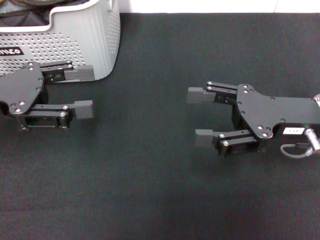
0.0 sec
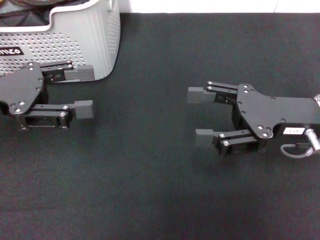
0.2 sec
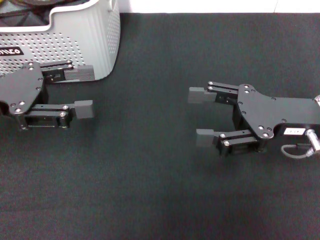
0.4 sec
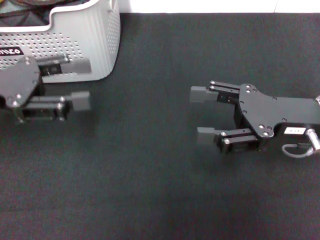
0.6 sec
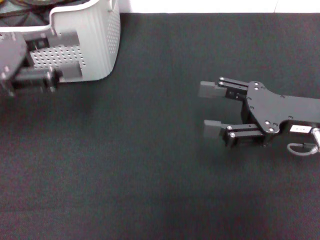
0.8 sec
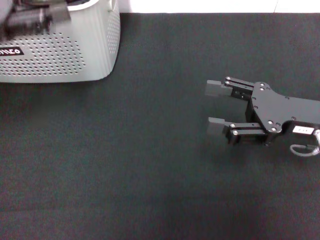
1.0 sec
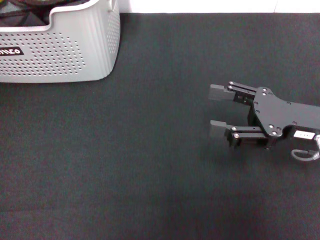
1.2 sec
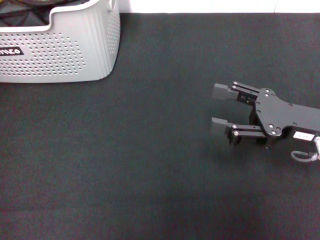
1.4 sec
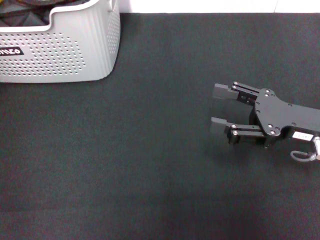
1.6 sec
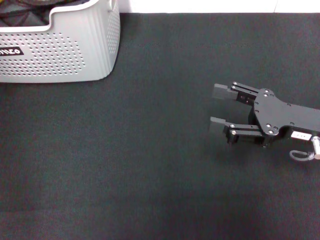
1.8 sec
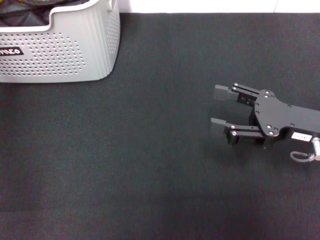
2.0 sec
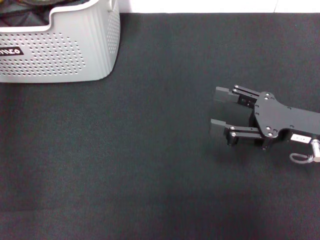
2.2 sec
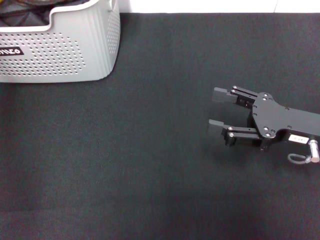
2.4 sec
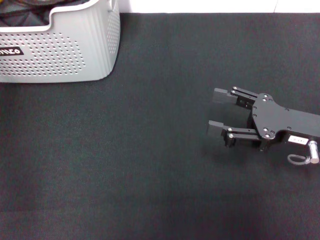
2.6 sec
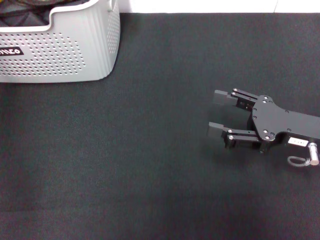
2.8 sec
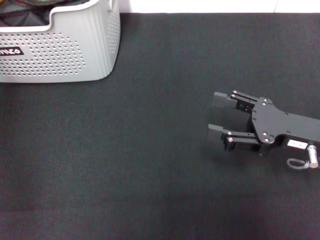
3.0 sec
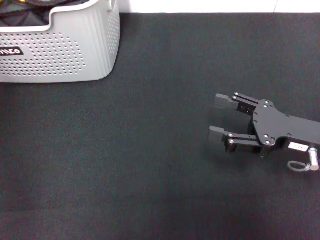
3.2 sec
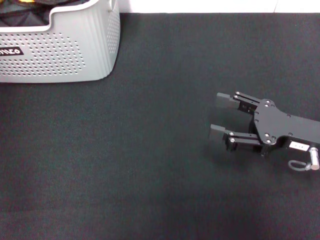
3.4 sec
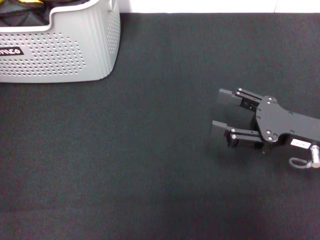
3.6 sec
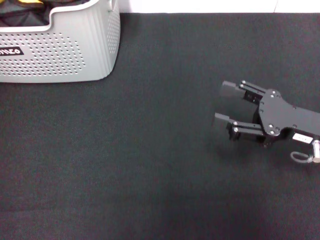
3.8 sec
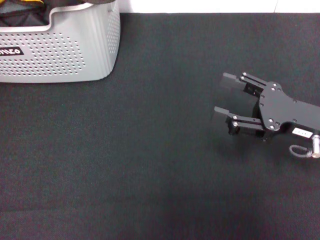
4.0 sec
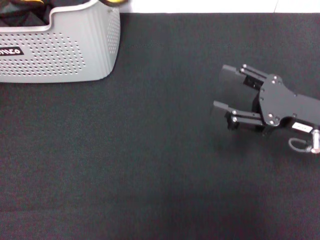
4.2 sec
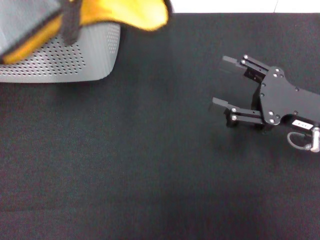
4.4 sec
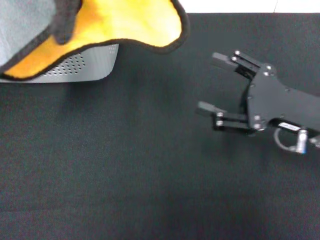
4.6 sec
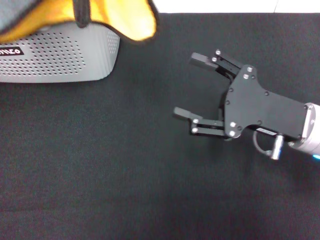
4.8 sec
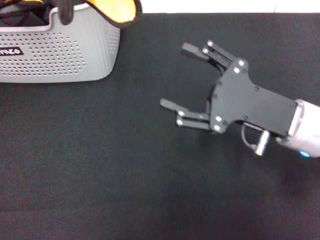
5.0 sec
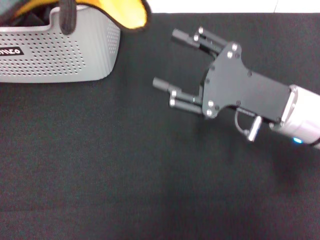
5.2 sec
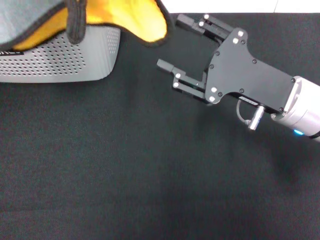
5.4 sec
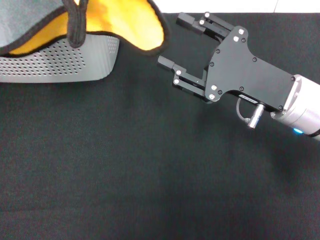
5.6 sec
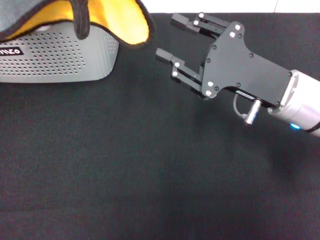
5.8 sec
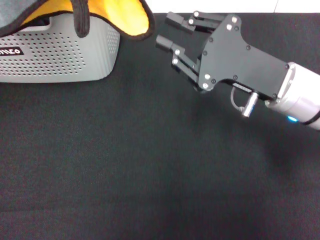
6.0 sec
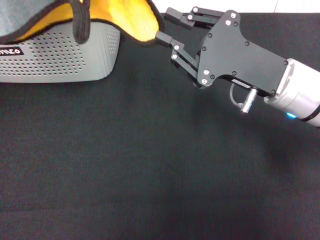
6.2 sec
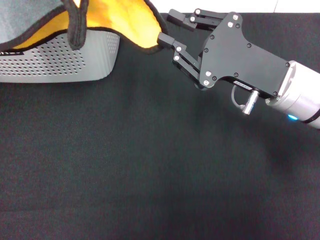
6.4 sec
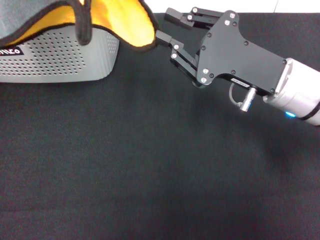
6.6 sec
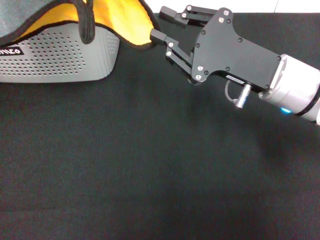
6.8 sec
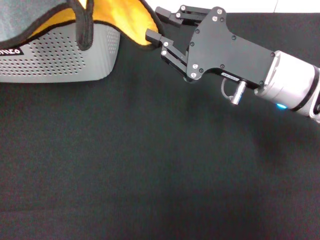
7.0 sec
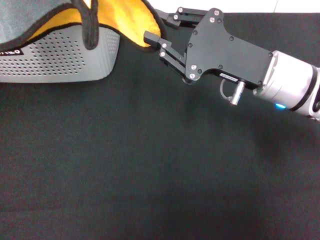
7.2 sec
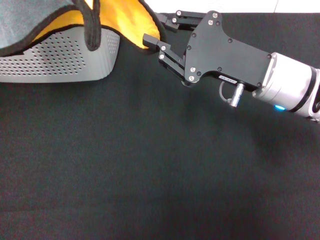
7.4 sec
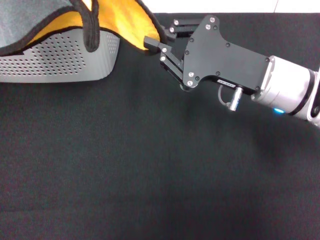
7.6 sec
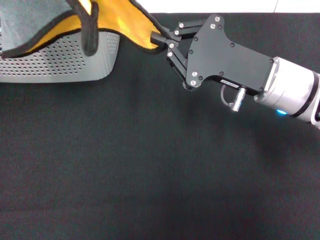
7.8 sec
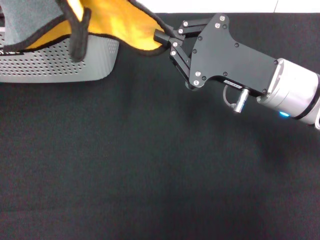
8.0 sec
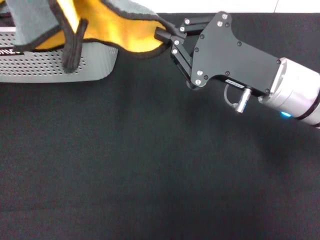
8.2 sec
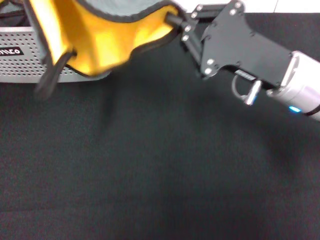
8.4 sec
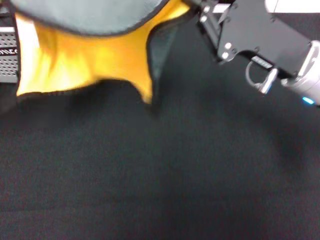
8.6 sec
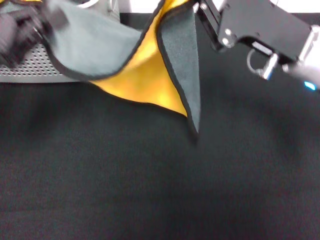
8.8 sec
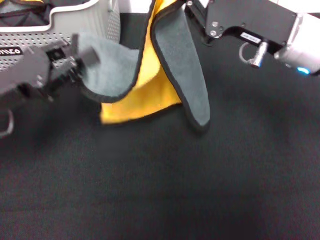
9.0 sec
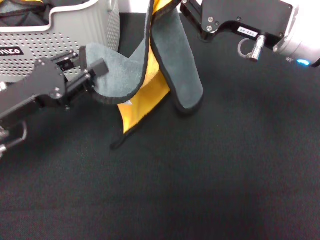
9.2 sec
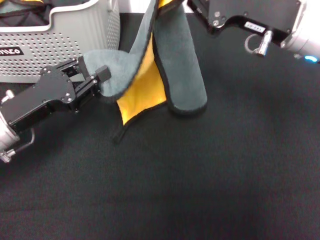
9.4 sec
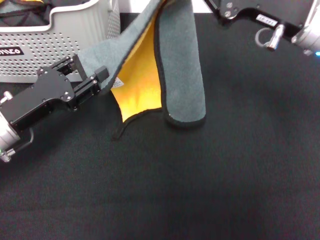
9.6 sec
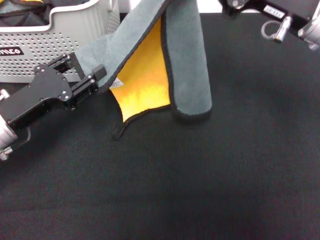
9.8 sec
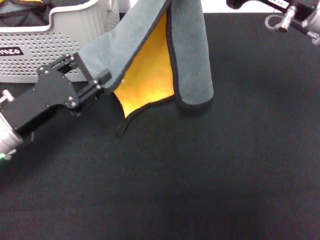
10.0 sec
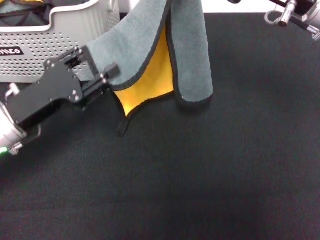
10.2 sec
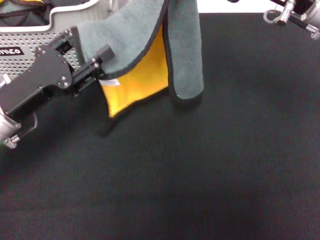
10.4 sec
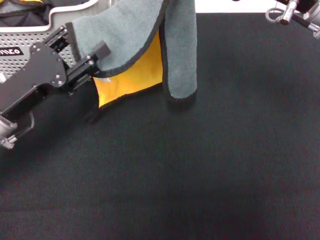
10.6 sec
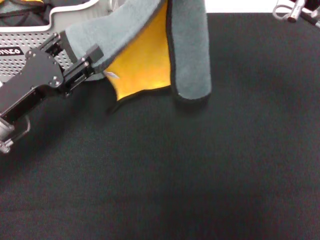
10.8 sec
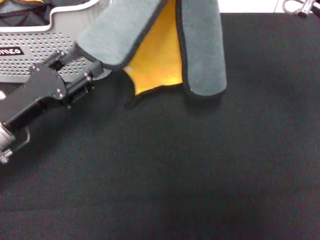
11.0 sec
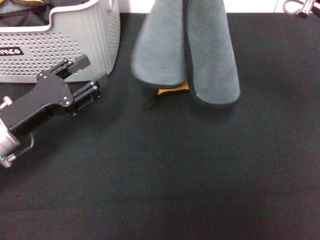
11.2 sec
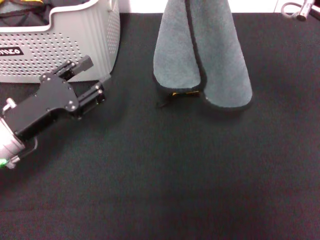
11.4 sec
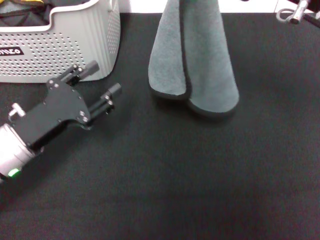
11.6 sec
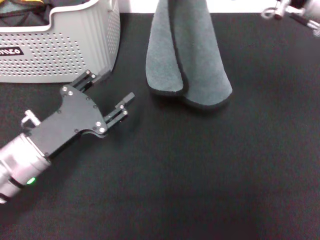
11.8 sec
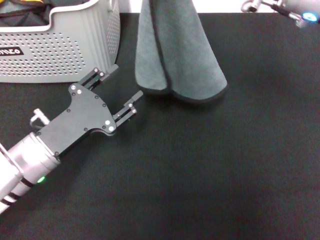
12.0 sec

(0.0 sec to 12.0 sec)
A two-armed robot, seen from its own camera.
Task of the whole recording: pick up the towel from the storage box and lay it flat on the black tablecloth.
Step, 0.0 sec - 3.4 sec: Pick up a towel with the left gripper.
Step, 3.6 sec - 7.8 sec: Spread the towel flat with the left gripper.
0.0 sec - 1.6 sec: The left gripper moves forward and upward, roughly 15 cm.
3.0 sec - 4.4 sec: The left gripper goes approximately 15 cm backward and upward, and closes its fingers.
4.4 sec - 6.0 sec: The right gripper goes roughly 10 cm to the left, and closes.
6.0 sec - 7.6 sec: The grippers stay close to where they were, moving slightly.
7.6 sec - 9.0 sec: The right gripper shifts by about 5 cm. The left gripper heads downward, covering roughly 20 cm.
9.0 sec - 10.4 sec: The left gripper opens its fingers.
10.4 sec - 12.0 sec: The left gripper heads downward, covering some 5 cm.

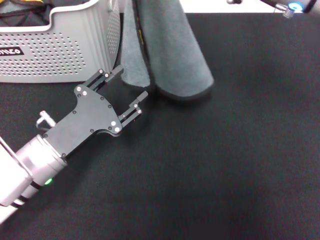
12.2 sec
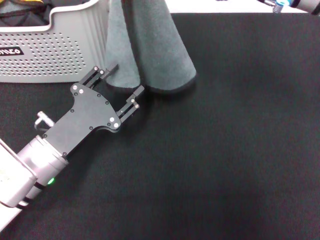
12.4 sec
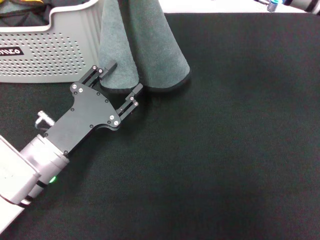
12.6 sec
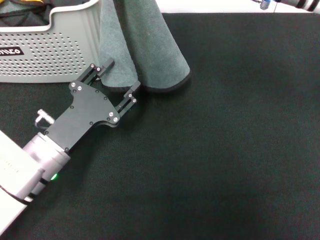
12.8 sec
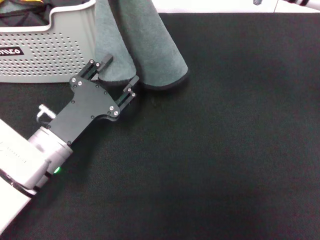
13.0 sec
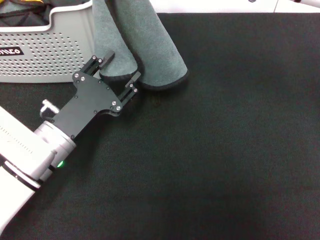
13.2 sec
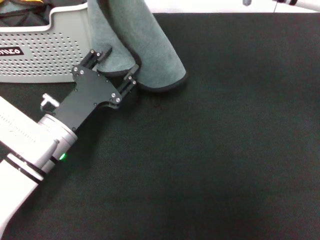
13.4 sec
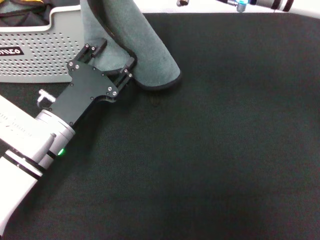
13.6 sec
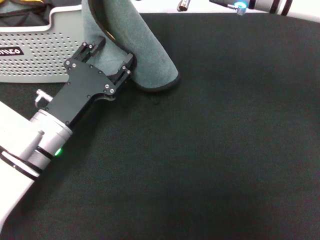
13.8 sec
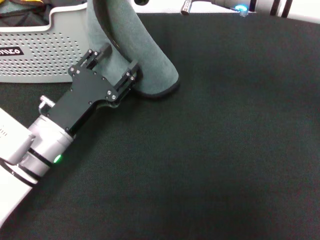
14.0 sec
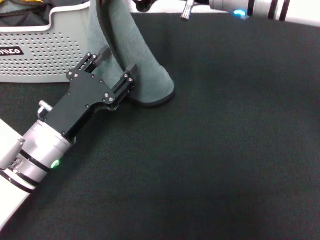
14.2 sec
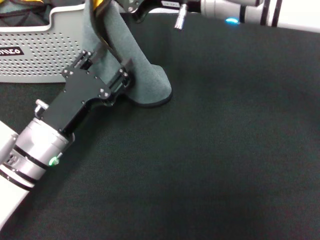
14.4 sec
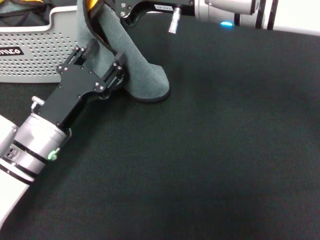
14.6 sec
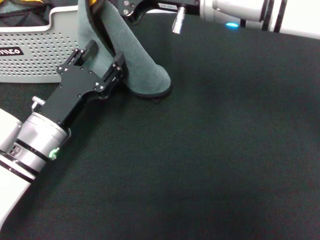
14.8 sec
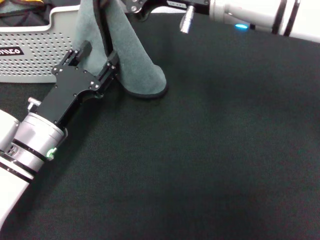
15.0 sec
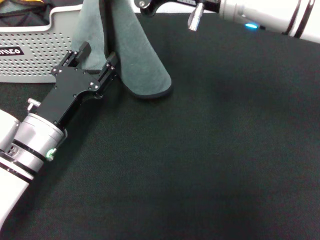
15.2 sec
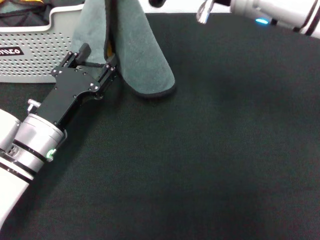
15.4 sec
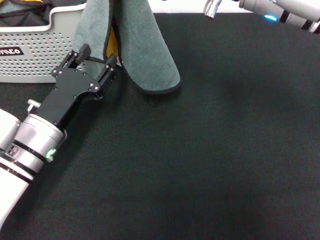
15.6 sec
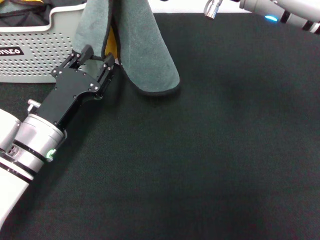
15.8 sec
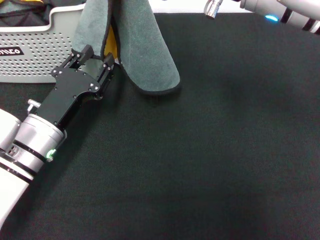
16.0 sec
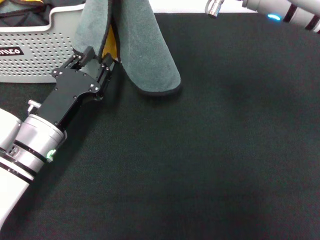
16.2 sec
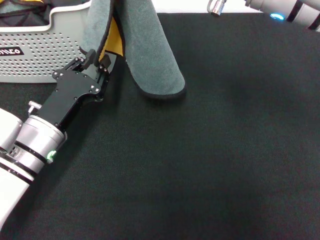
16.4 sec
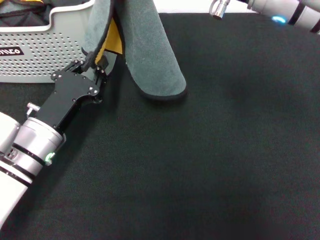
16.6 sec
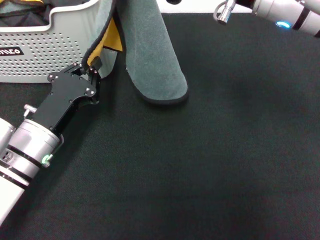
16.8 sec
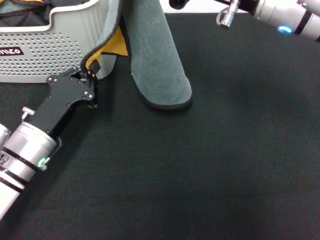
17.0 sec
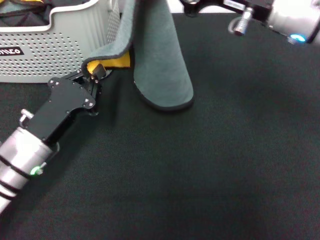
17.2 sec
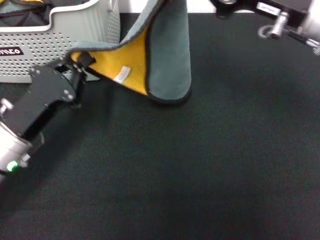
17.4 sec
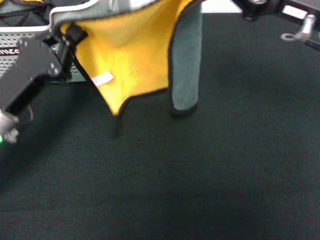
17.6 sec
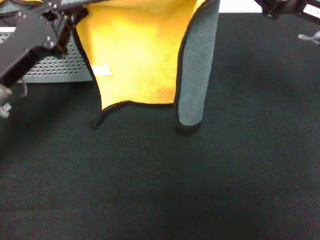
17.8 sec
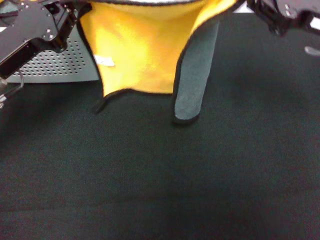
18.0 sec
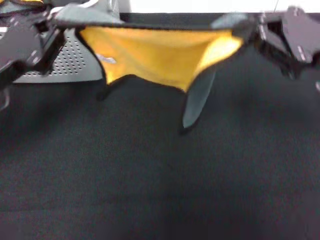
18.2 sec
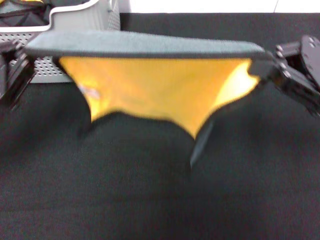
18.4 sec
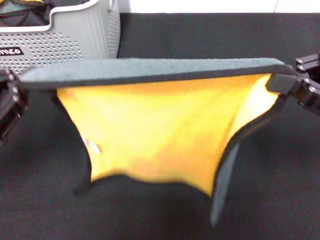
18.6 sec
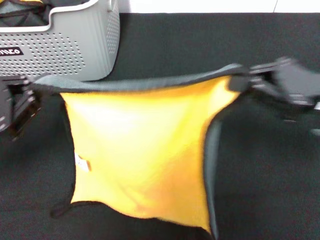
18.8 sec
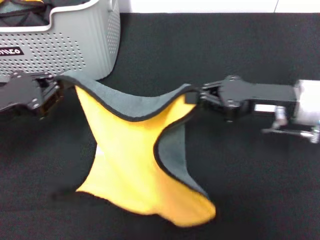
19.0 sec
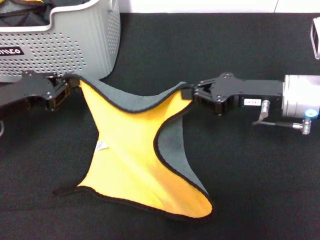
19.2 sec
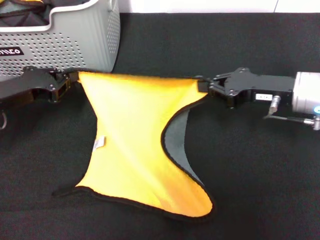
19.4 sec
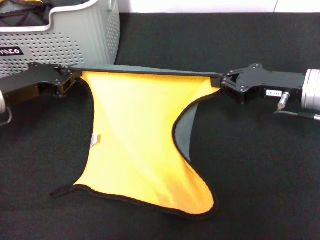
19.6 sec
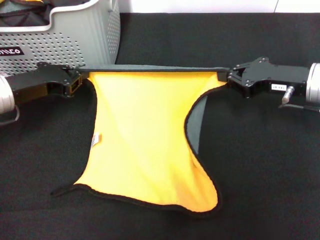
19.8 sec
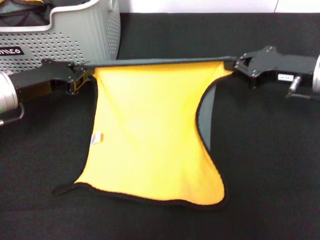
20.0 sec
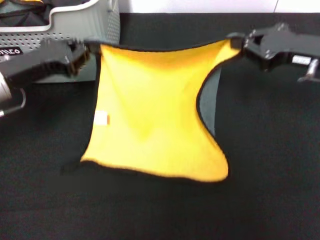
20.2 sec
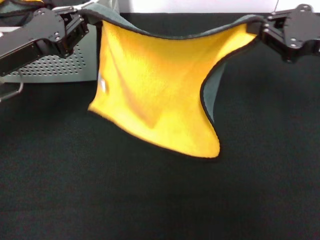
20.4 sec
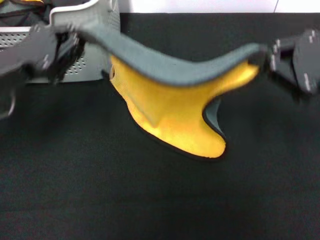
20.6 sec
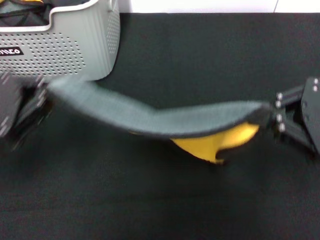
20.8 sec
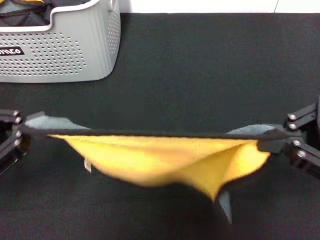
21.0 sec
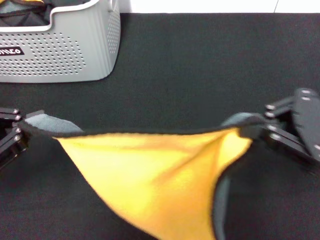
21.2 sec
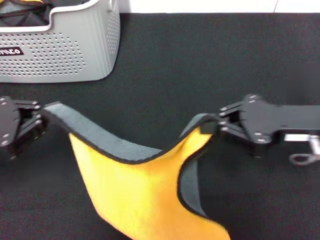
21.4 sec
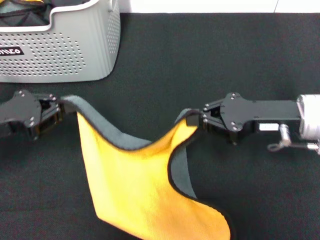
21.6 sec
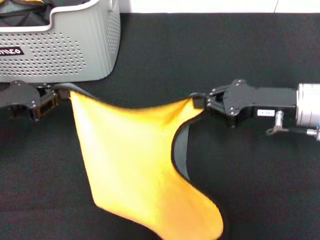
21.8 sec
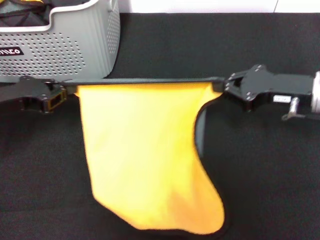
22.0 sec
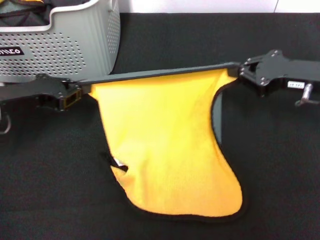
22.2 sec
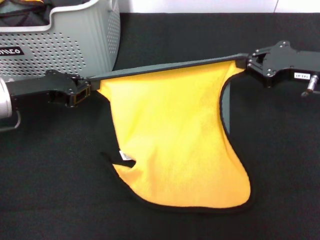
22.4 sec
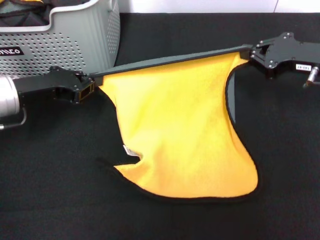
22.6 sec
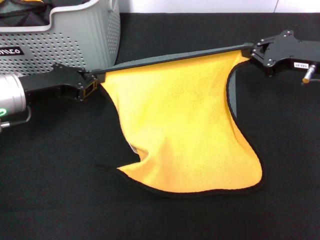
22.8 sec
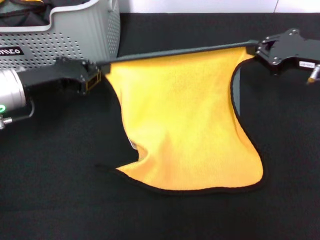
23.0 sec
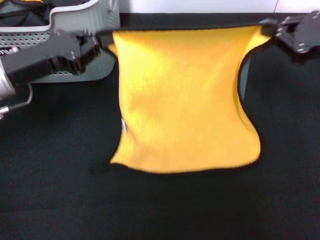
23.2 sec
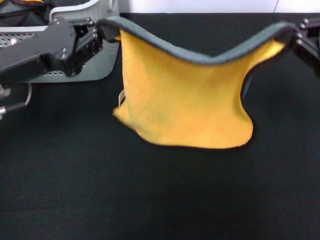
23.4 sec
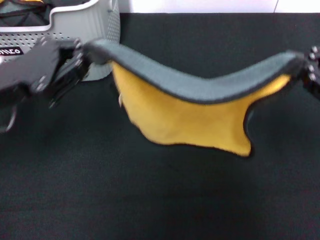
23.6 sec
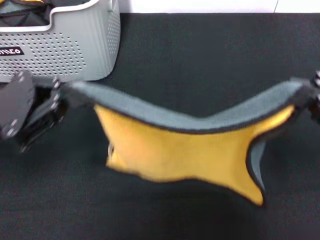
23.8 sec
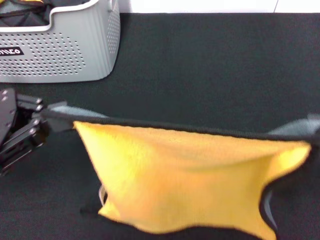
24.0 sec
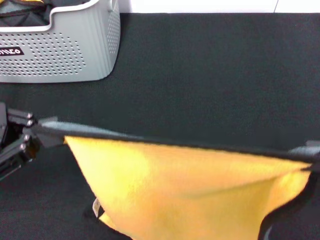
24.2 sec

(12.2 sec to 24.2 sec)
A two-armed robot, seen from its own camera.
Task of the whole recording: pick up the towel from the storage box and lay it flat on the black tablecloth.
12.2 sec - 13.8 sec: The right gripper shifts approximately 5 cm to the left.
13.8 sec - 15.2 sec: The grippers stay close to where they were, moving slightly.
15.2 sec - 16.6 sec: The left gripper closes up.
16.6 sec - 18.2 sec: The left gripper goes approximately 10 cm upward and to the left, and closes. Meanwhile the right gripper moves to the right and downward, roughly 15 cm.
18.2 sec - 19.8 sec: The left gripper changes place by approximately 5 cm; the right gripper moves downward and forward, about 10 cm.
19.8 sec - 21.2 sec: Both grippers travel together backward and upward, about 15 cm.
21.2 sec - 22.6 sec: Both grippers move forward, roughly 15 cm.
22.6 sec - 24.2 sec: The right gripper is displaced backward by about 15 cm; the left gripper goes roughly 15 cm backward and upward.
